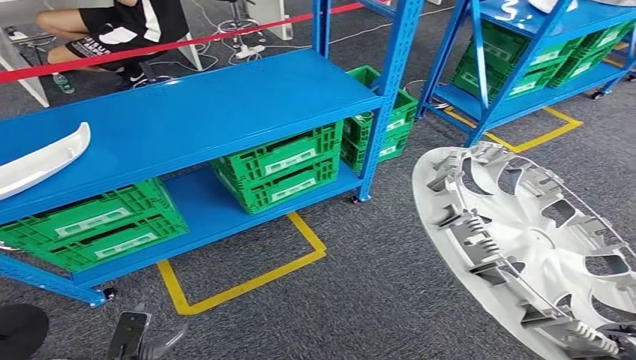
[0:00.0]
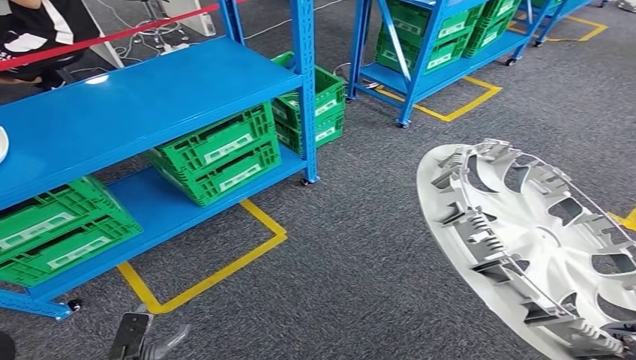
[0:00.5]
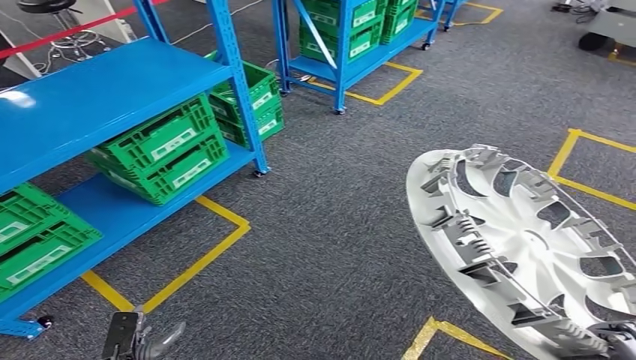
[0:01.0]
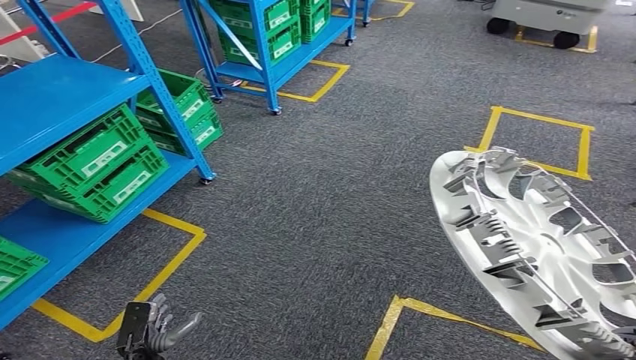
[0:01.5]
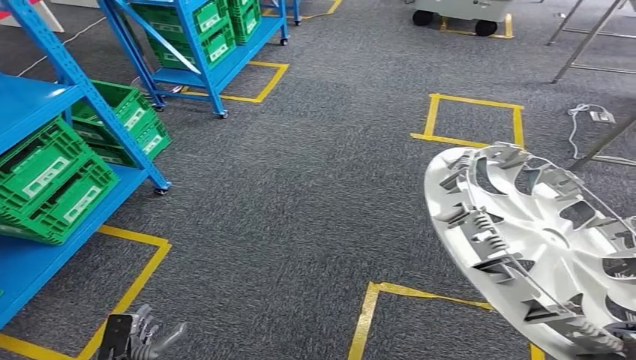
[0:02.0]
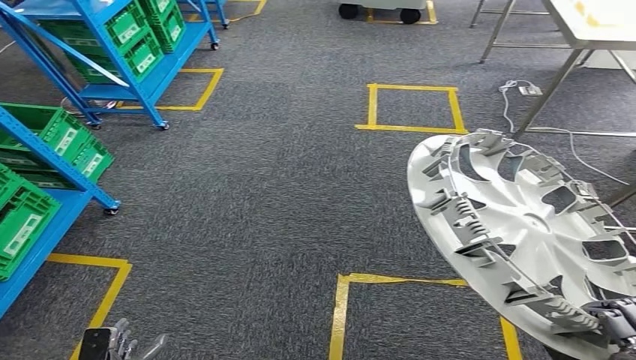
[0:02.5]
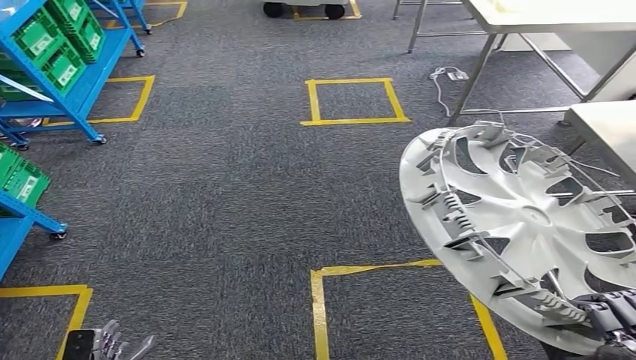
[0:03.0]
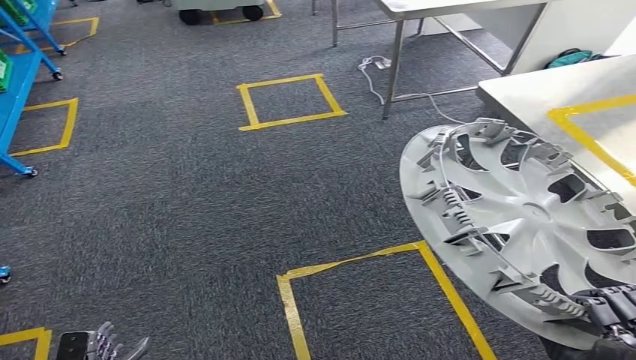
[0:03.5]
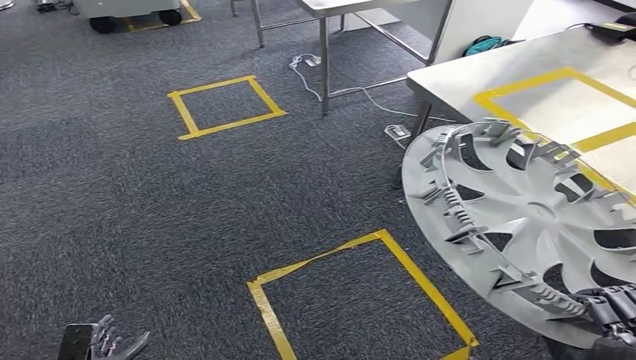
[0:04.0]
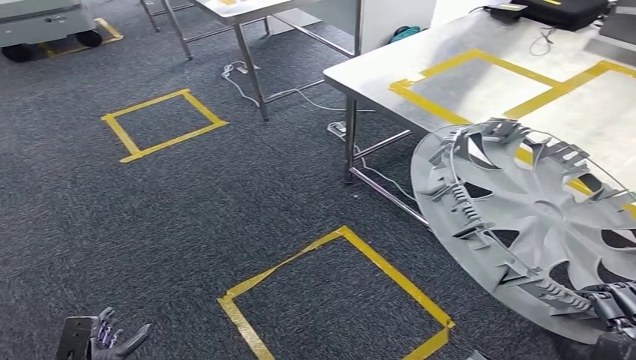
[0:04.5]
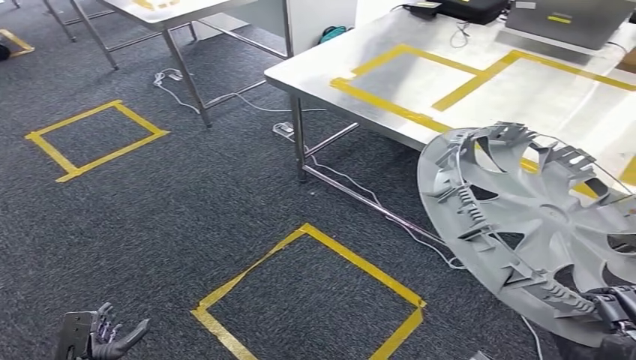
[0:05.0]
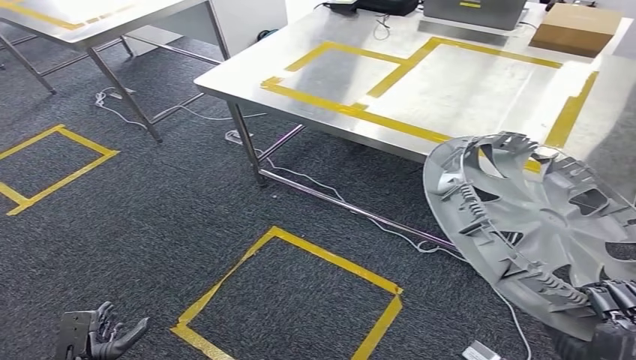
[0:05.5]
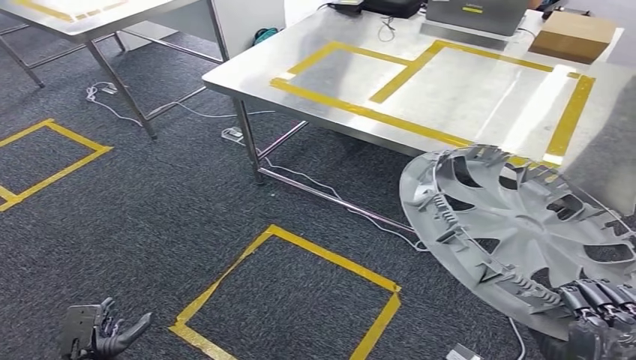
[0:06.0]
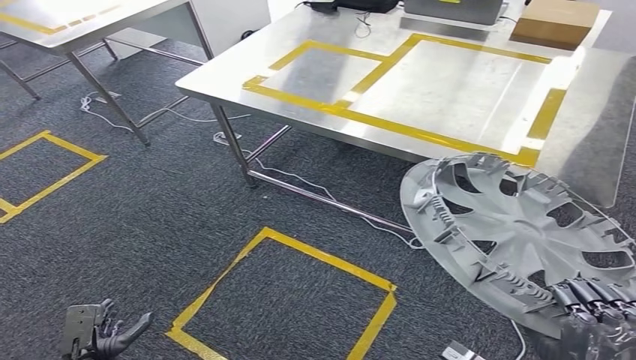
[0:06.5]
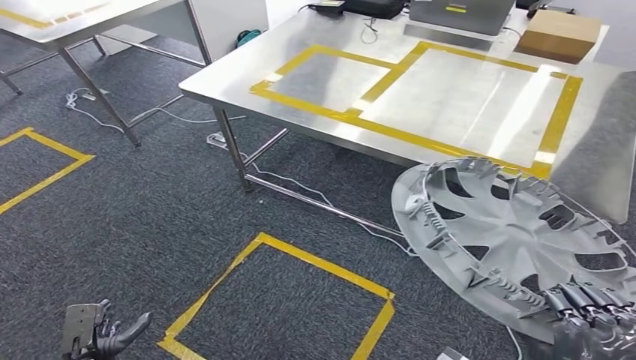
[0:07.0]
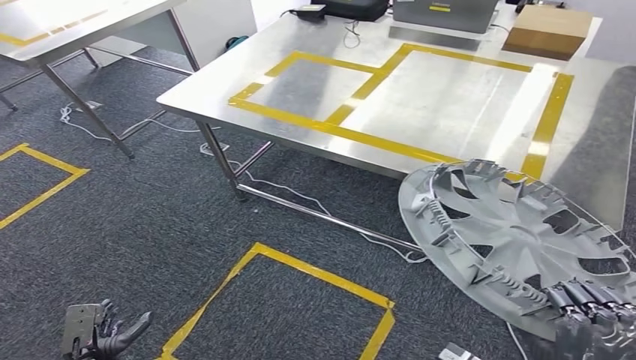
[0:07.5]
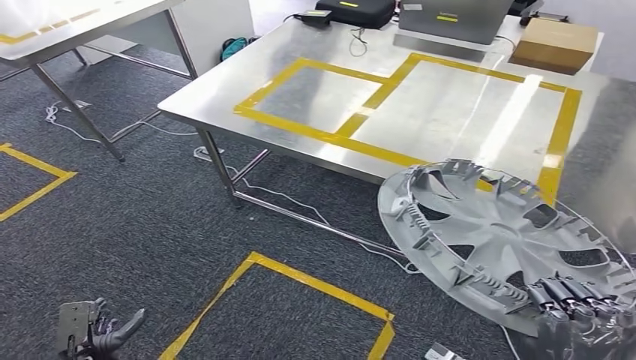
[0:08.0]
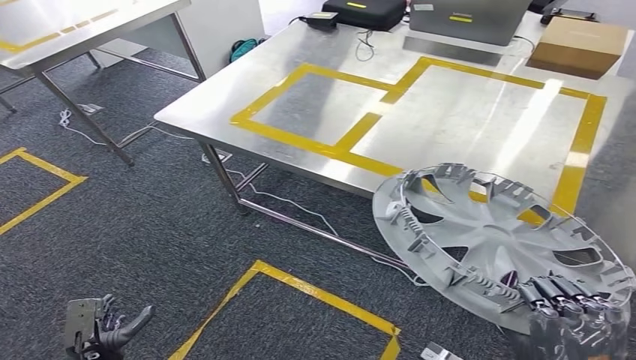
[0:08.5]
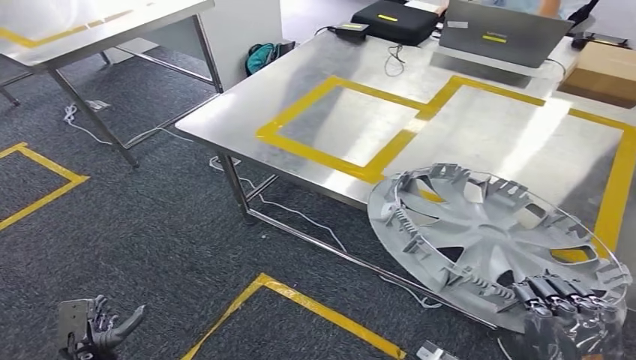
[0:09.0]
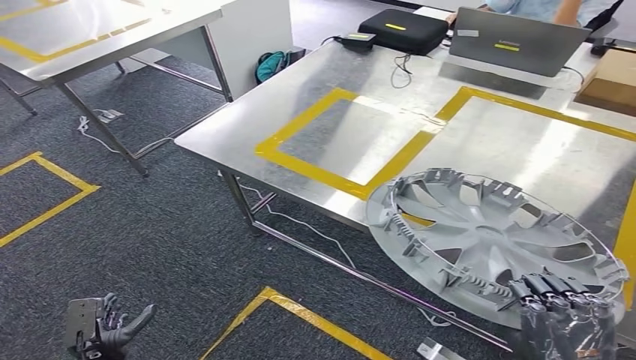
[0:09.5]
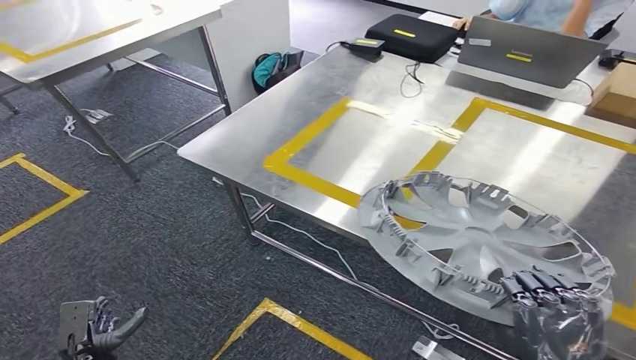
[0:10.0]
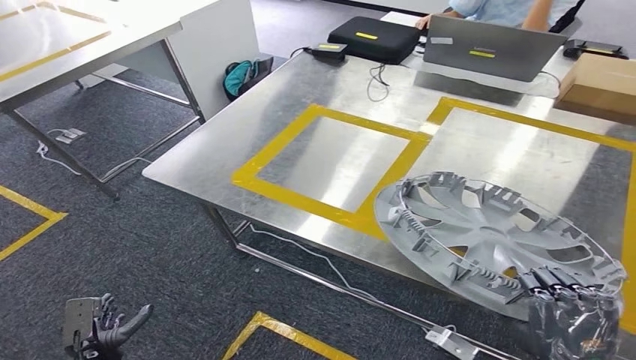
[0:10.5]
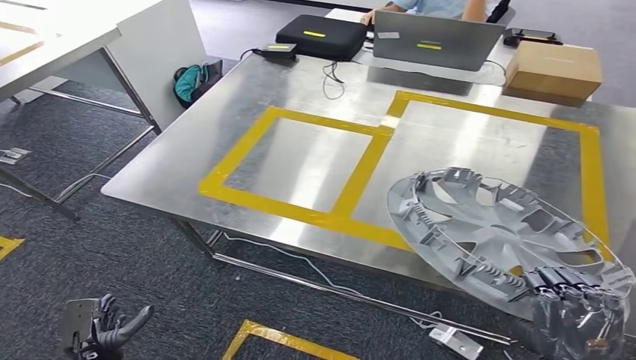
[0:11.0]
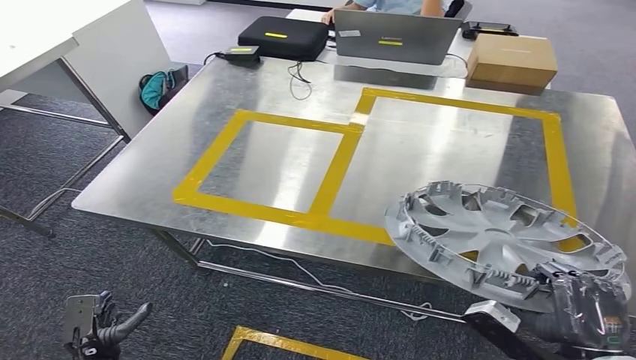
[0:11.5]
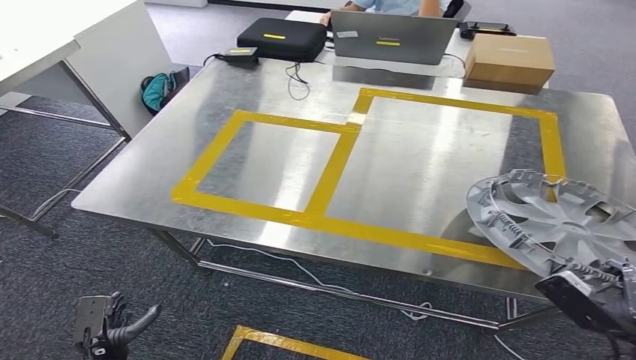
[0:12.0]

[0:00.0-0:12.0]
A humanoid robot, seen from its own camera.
Step, 0:00.0 to 0:06.5: Move the small component to the workbench.

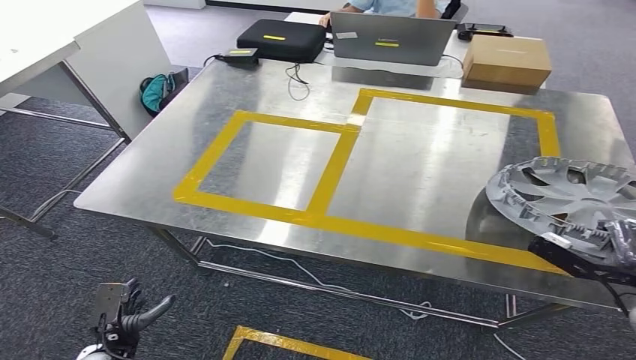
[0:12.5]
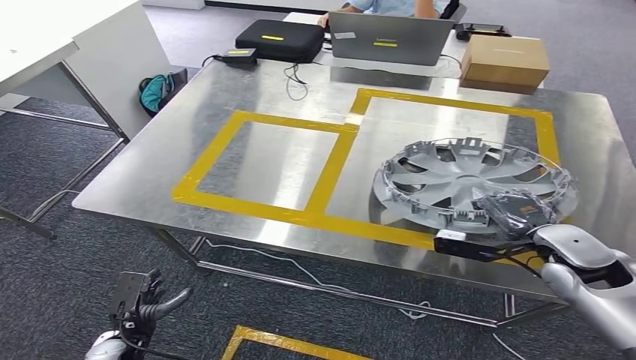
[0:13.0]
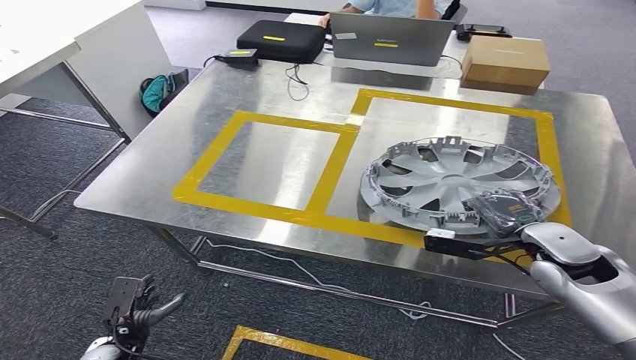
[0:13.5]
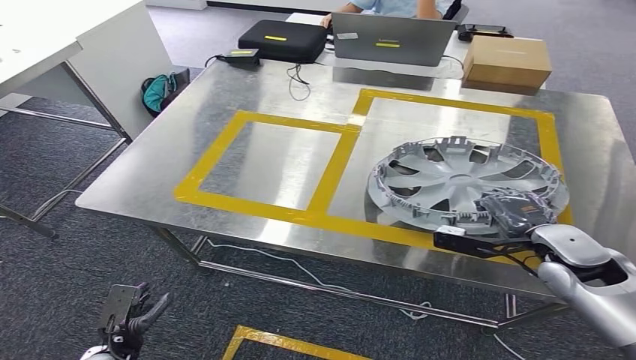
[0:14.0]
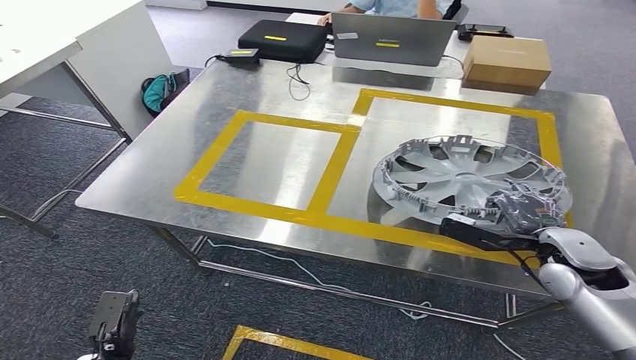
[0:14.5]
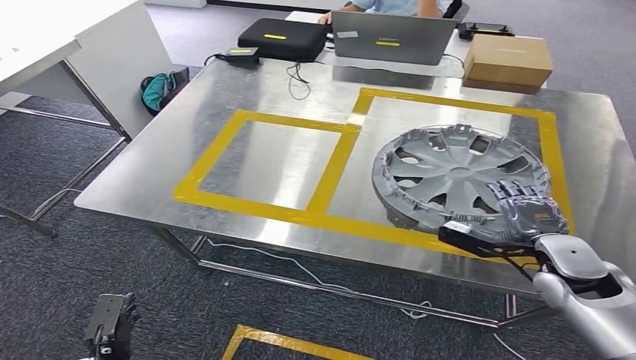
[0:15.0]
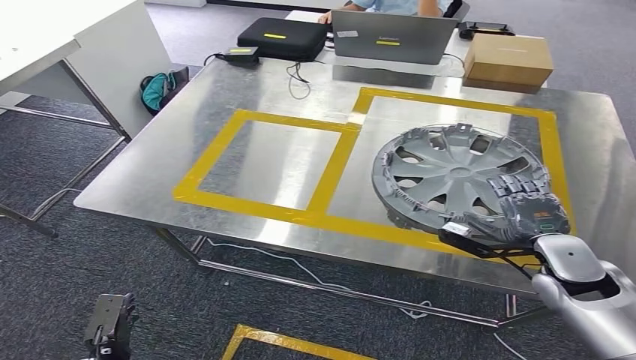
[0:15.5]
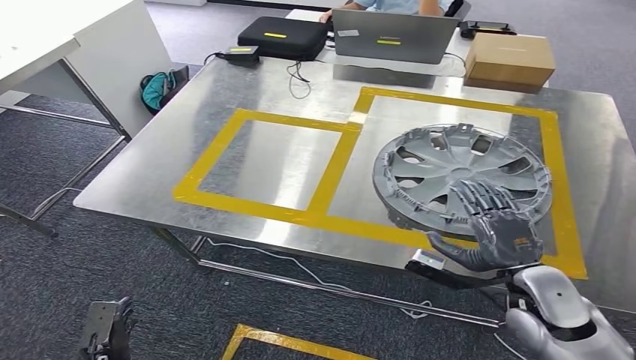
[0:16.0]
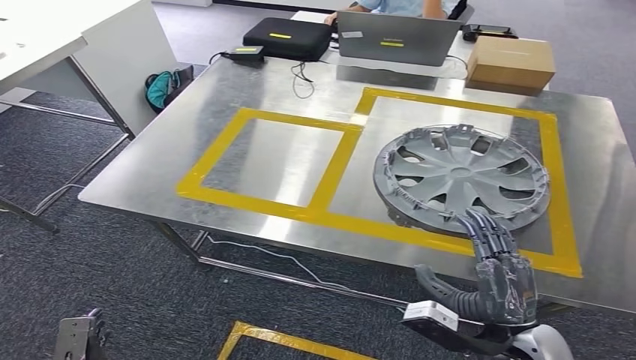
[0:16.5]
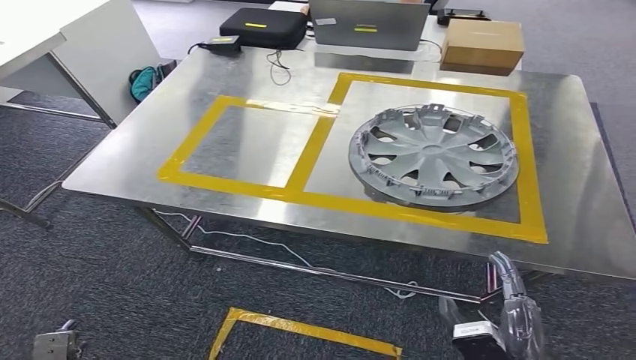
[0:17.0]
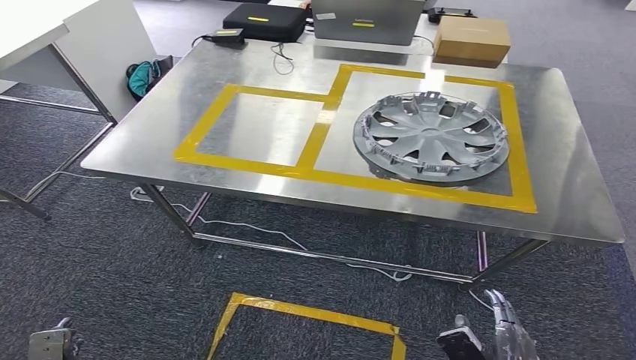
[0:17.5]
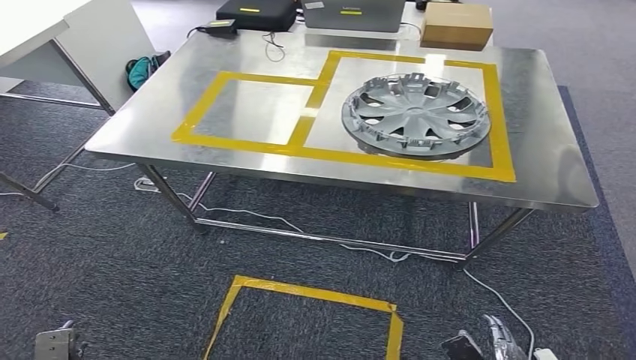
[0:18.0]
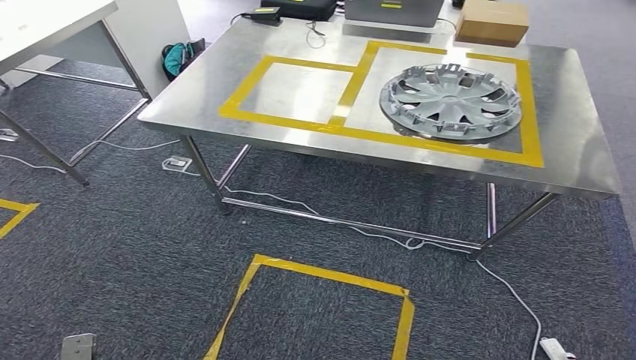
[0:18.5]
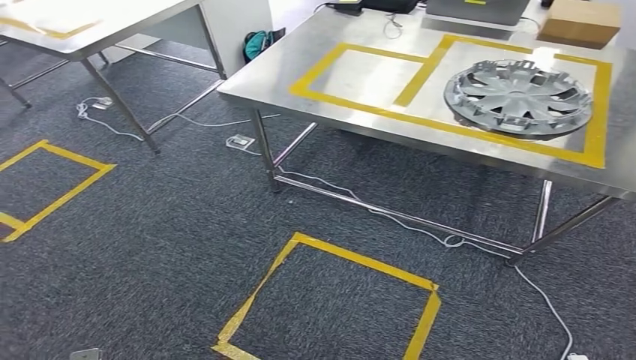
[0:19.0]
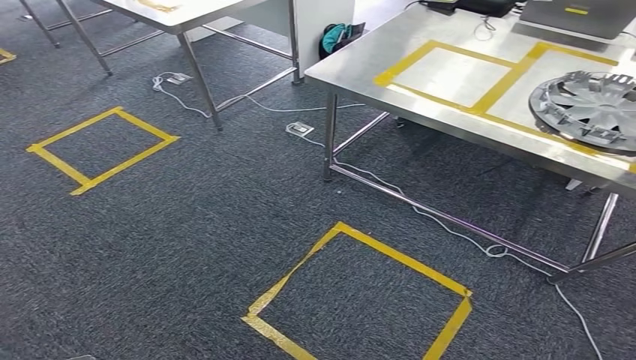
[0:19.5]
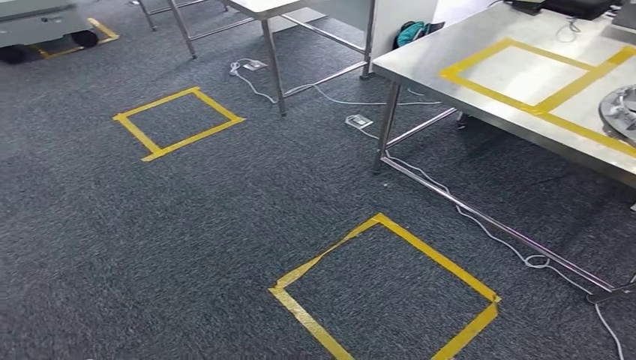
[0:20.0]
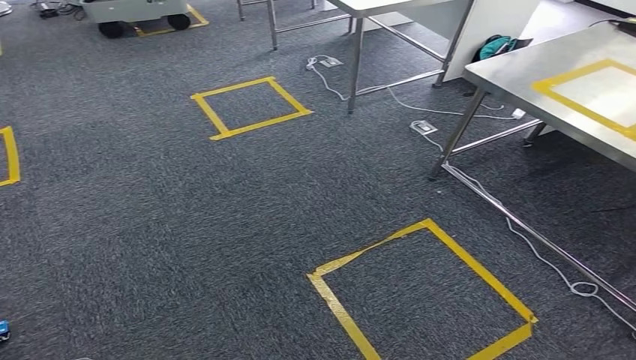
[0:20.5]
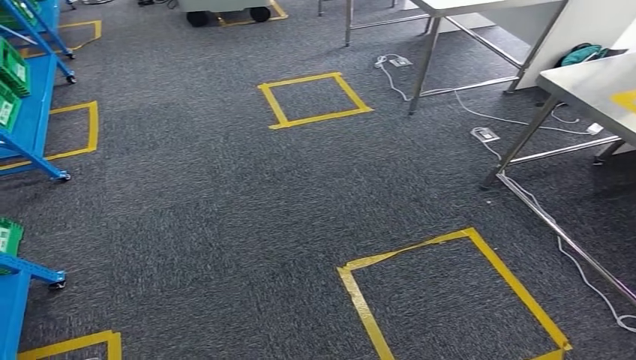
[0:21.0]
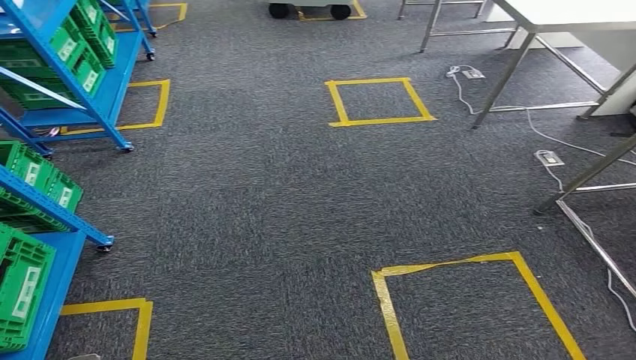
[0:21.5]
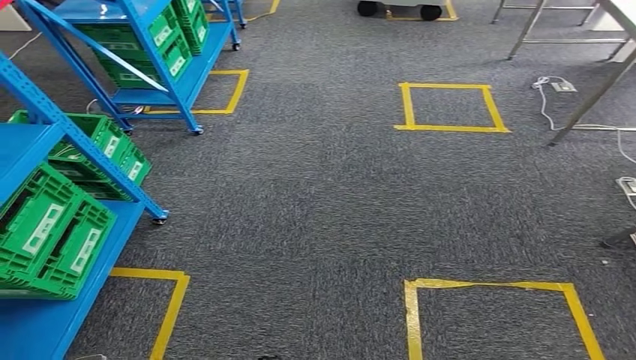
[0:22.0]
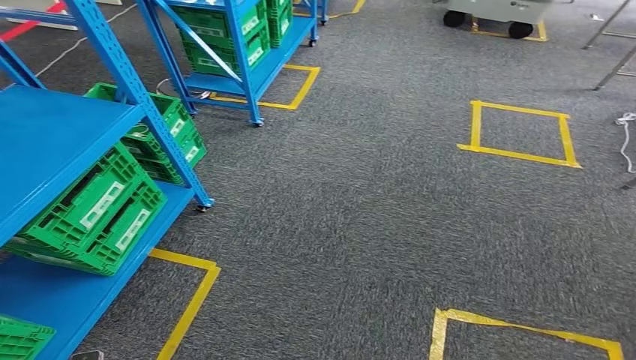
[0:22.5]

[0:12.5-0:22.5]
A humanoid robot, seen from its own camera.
Step, 0:12.5 to 0:16.5: Insert the small component into the corresponding slot on the workbench.
0:12.5 to 0:14.5: The right hand shifts some 15 cm to the left and forward.
